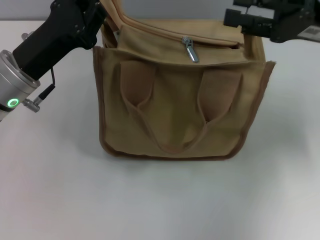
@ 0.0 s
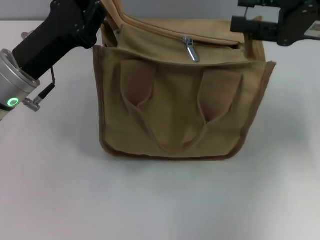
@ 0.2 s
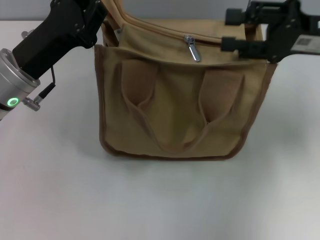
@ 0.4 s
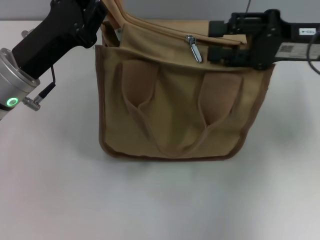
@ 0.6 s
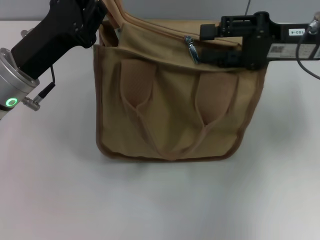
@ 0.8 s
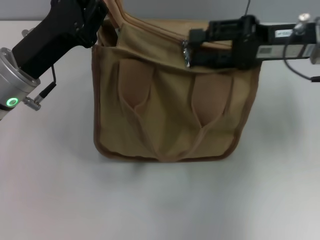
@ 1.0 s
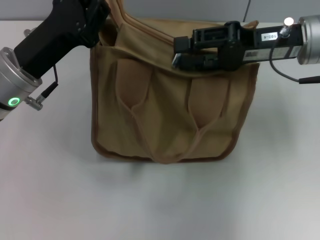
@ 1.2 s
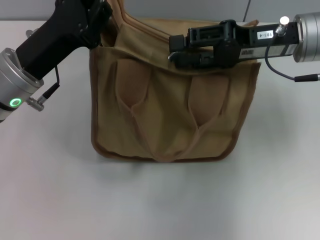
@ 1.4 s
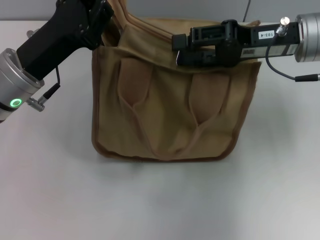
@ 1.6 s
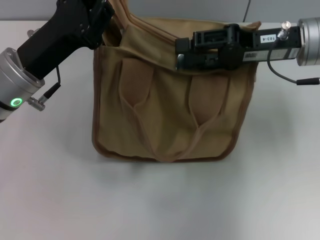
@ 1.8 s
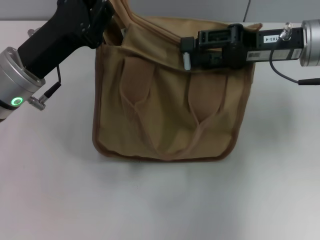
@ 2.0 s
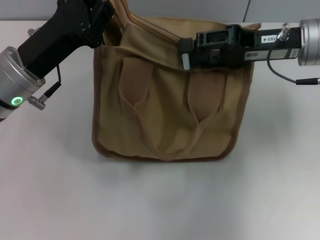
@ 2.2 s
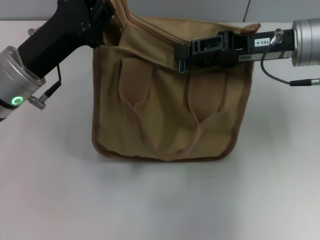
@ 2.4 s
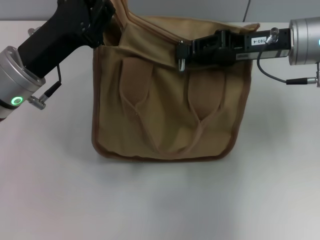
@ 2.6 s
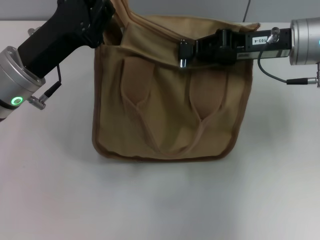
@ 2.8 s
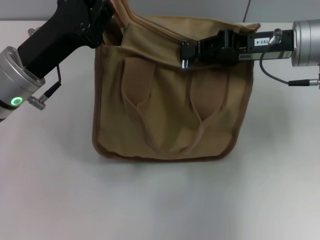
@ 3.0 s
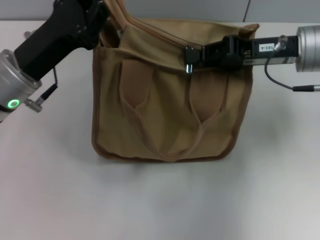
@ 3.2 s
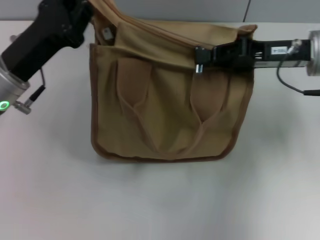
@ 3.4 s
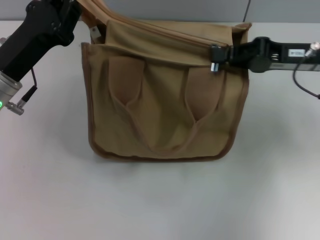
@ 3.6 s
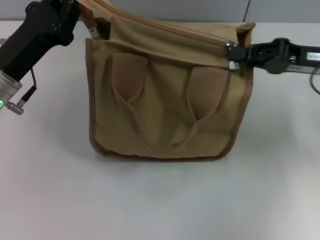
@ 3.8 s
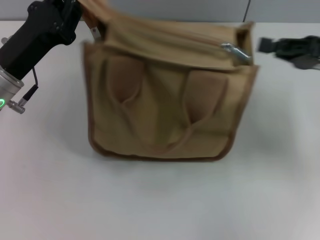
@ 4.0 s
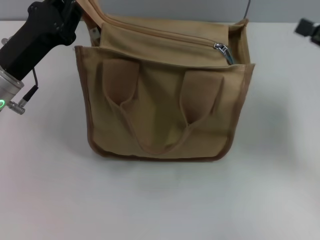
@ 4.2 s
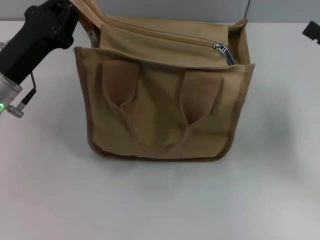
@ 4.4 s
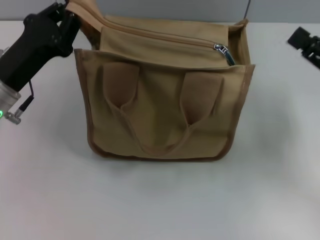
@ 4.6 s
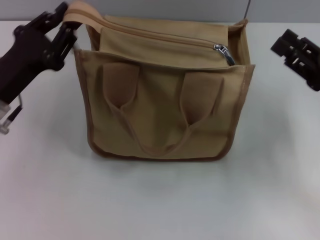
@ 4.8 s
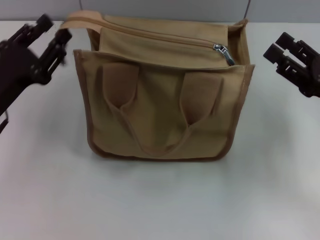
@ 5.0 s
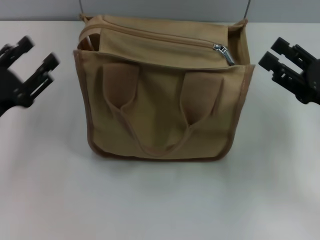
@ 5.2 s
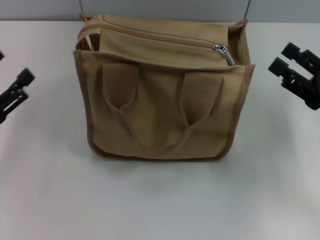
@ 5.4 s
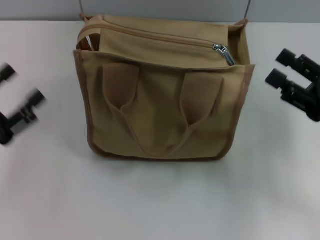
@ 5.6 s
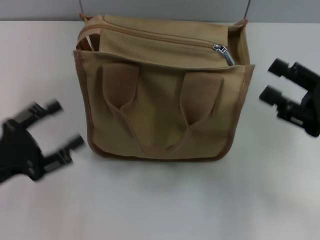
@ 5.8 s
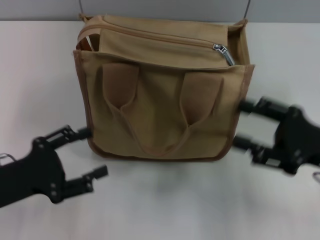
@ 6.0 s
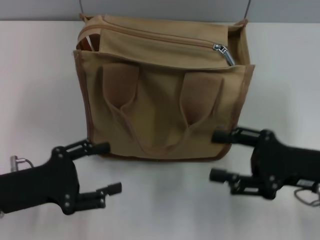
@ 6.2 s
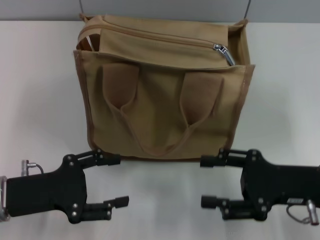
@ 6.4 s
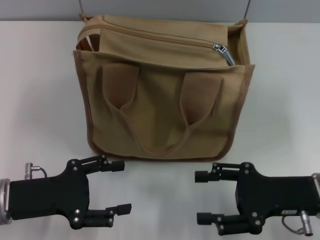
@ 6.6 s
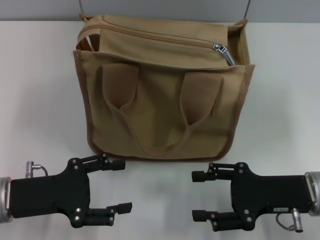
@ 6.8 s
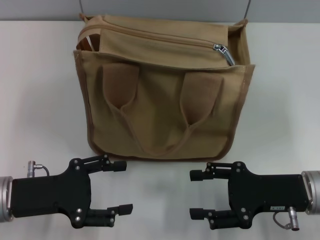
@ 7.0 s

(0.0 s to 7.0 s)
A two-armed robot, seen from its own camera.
Step, 0.0 s - 3.8 s: Pull up the zipper with your right hand.
Step, 4.0 s - 5.0 s: Grab the zipper with your left hand.
0.0 s - 1.4 s: The right gripper shifts roughly 5 cm to the left.
1.4 s - 2.8 s: The right gripper closes.
2.8 s - 4.2 s: The right gripper goes roughly 15 cm to the right and backward.
4.2 s - 5.6 s: The right gripper shifts some 5 cm backward, and opens its fingers; the left gripper shifts about 15 cm backward and to the left, and opens its fingers.
5.6 s - 7.0 s: The left gripper is displaced to the right by roughly 5 cm. Meanwhile the right gripper heads to the left, covering roughly 5 cm.

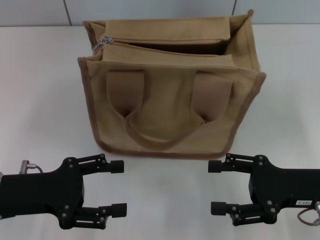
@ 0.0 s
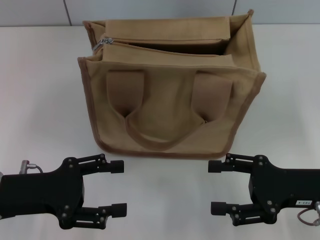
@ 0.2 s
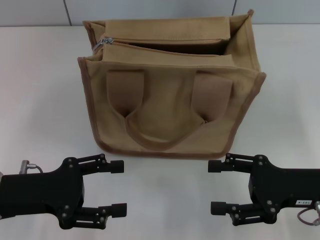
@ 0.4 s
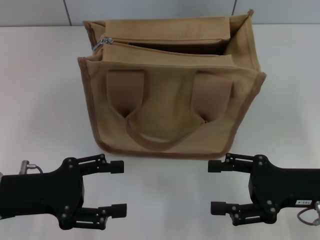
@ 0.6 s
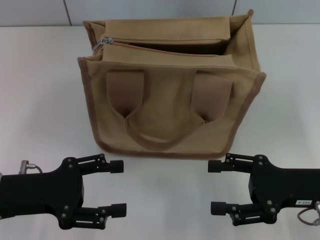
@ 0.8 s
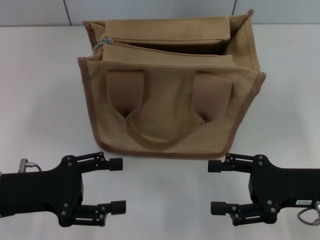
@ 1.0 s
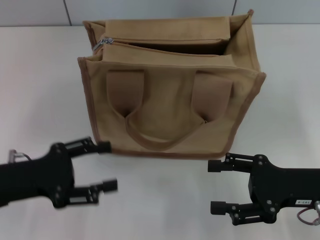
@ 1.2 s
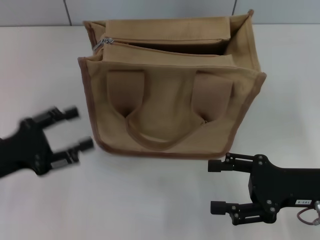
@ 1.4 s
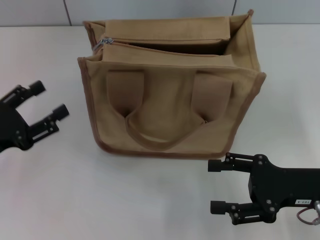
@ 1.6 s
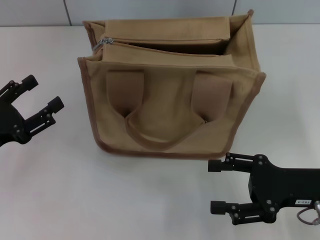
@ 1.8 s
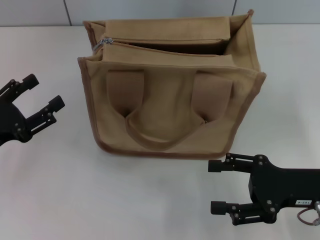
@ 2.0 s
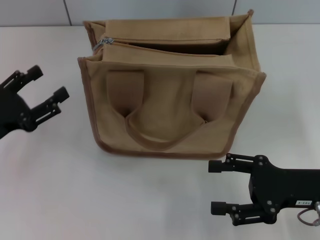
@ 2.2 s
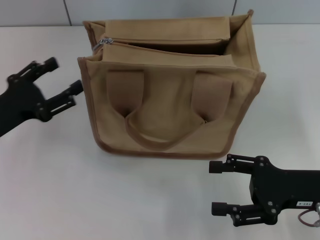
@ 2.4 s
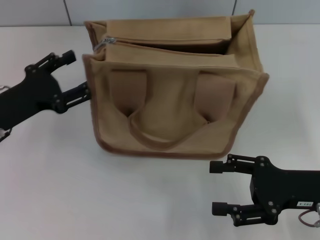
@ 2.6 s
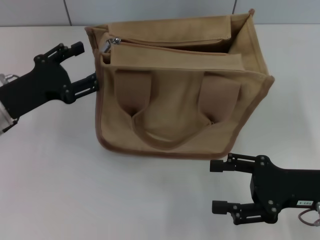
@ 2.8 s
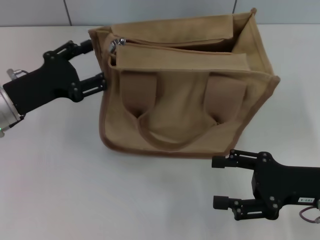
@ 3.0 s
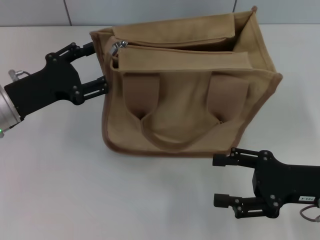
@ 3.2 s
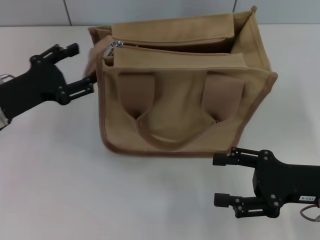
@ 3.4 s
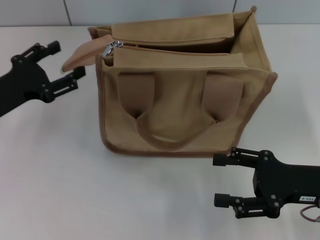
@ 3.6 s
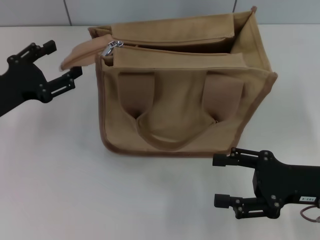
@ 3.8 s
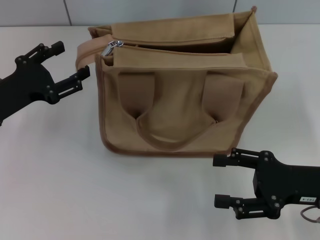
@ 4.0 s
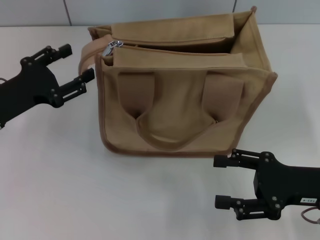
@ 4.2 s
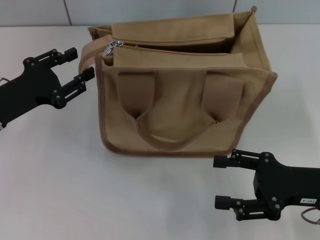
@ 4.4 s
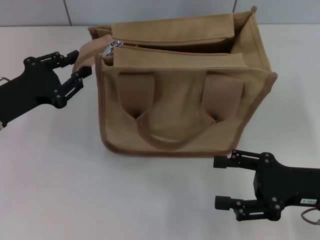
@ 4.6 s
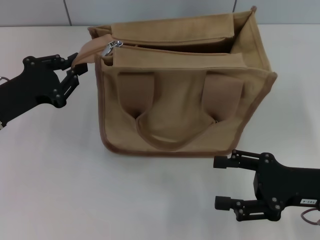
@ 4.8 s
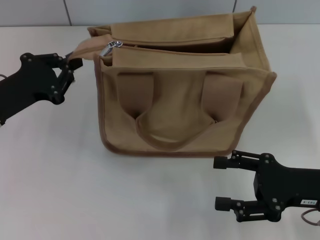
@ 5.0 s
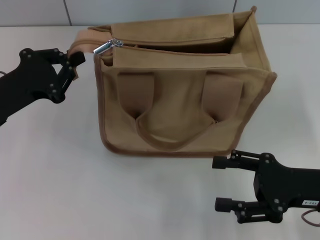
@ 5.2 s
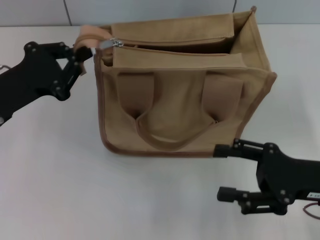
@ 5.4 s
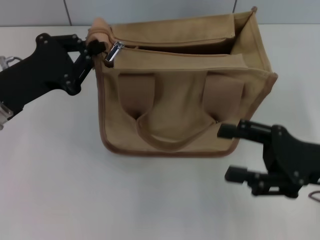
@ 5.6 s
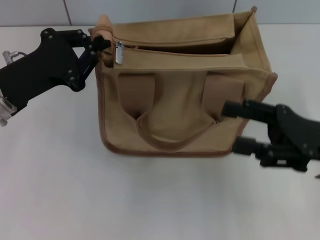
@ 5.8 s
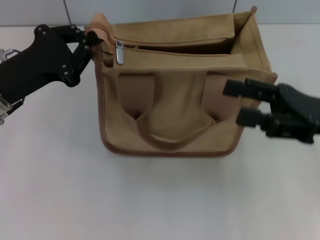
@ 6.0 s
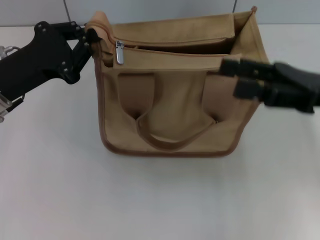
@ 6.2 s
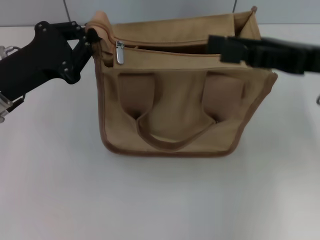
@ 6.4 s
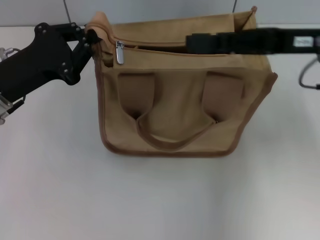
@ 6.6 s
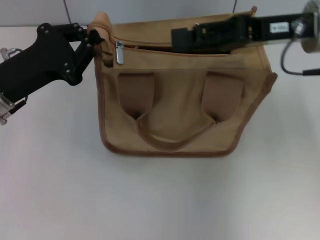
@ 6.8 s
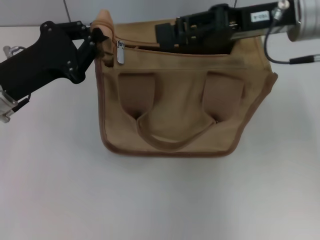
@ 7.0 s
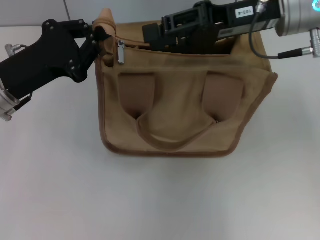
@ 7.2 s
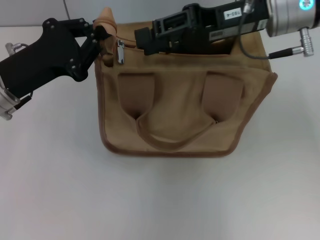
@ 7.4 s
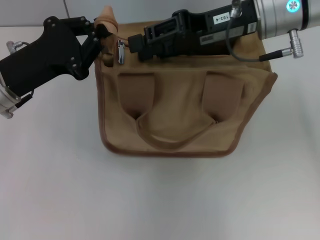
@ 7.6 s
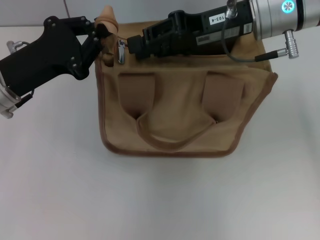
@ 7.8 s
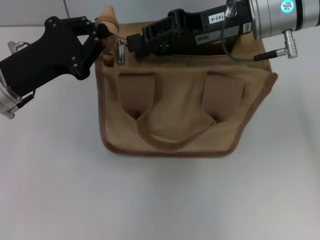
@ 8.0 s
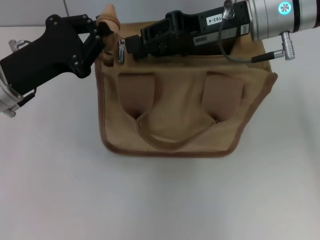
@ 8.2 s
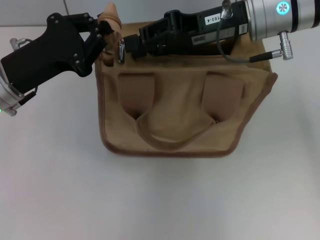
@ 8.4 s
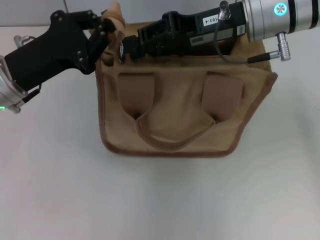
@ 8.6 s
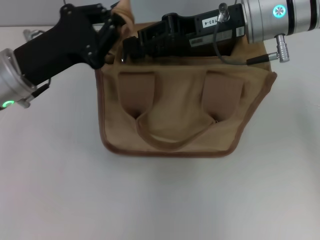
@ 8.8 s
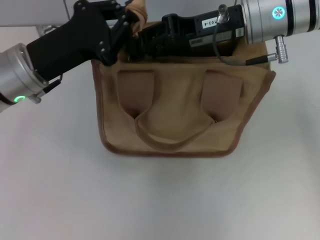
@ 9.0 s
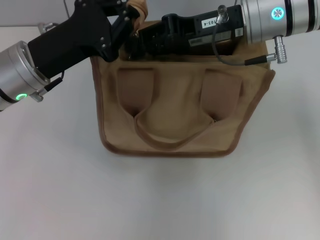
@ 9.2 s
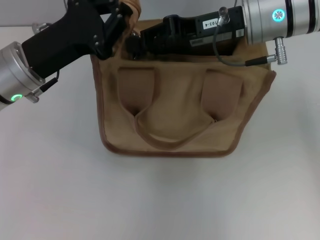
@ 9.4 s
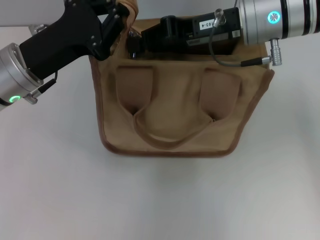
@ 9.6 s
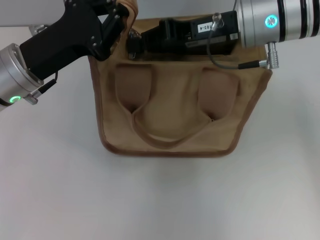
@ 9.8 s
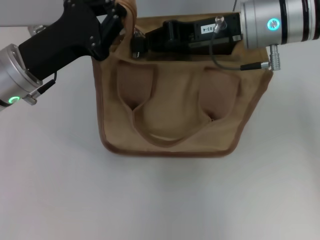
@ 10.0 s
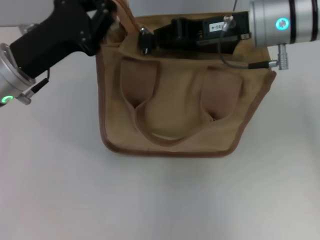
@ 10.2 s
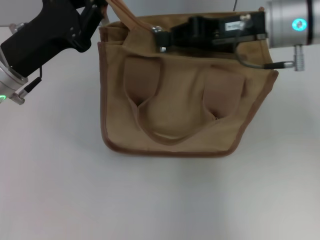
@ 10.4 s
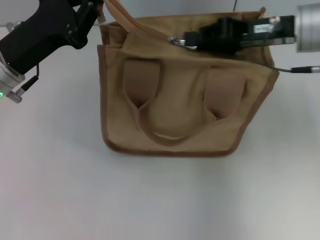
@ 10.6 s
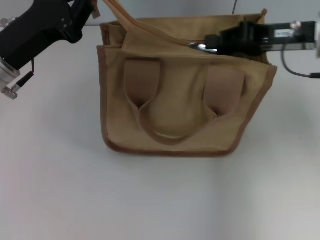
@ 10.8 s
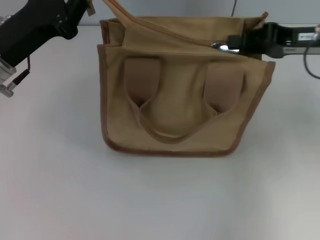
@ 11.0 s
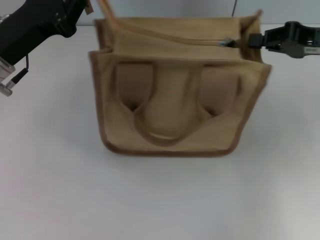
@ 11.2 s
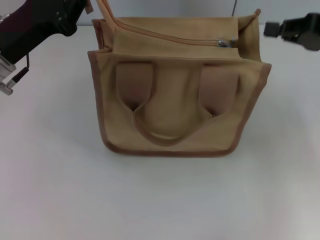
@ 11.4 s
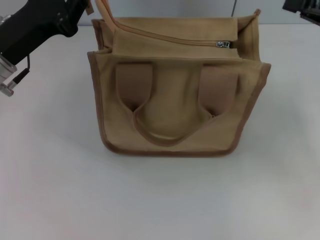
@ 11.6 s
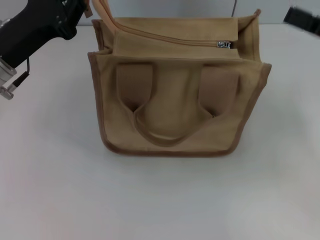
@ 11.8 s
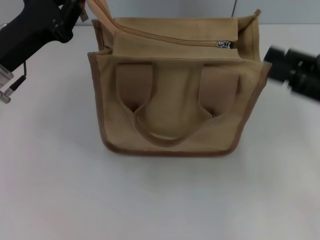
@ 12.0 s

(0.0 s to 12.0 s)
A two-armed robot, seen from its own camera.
Step, 0.0 s - 11.2 s: Pull up the zipper with your right hand.
0.0 s - 1.6 s: The left gripper moves to the left, some 5 cm.
1.6 s - 3.0 s: The left gripper goes roughly 10 cm forward and to the right.
3.0 s - 4.4 s: The grippers make only small movements.
4.4 s - 6.0 s: The right gripper goes roughly 5 cm upward. Meanwhile the left gripper closes up.
6.0 s - 7.6 s: The right gripper heads forward, to the left and upward, covering about 20 cm, and closes up.
7.6 s - 9.0 s: The grippers make only small movements.
10.4 s - 12.0 s: The right gripper travels to the right, backward and downward by some 15 cm, and opens its fingers.

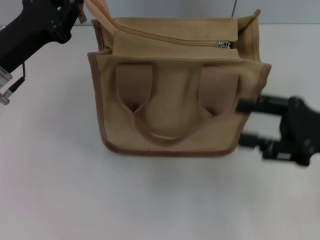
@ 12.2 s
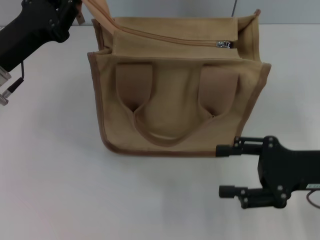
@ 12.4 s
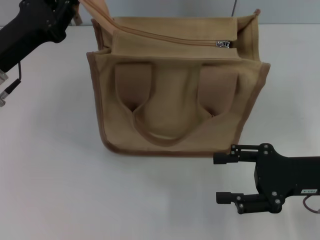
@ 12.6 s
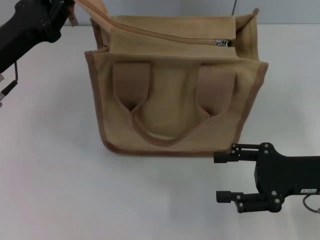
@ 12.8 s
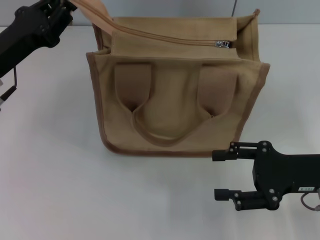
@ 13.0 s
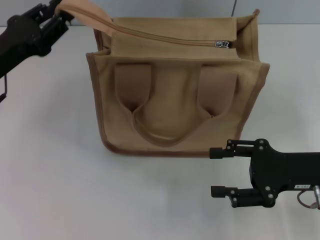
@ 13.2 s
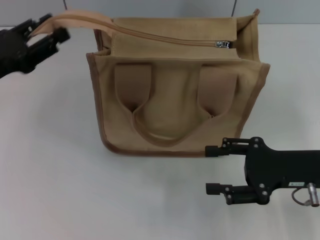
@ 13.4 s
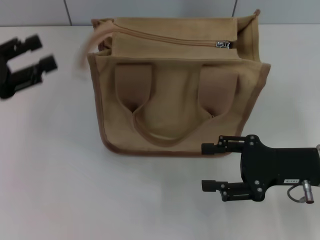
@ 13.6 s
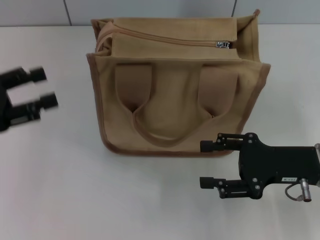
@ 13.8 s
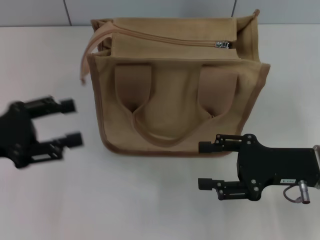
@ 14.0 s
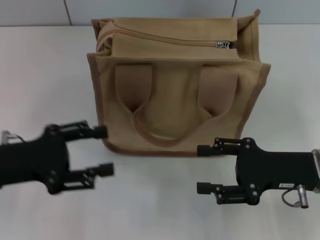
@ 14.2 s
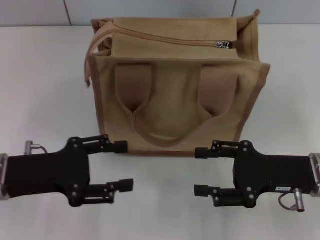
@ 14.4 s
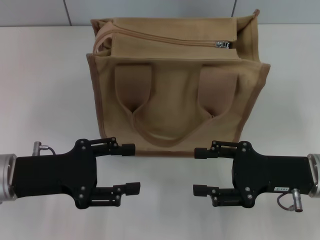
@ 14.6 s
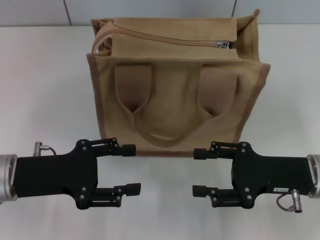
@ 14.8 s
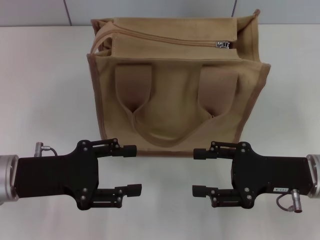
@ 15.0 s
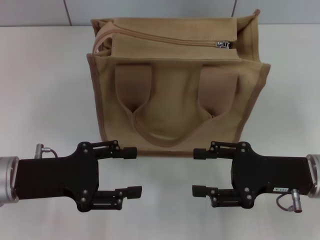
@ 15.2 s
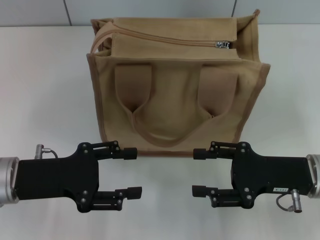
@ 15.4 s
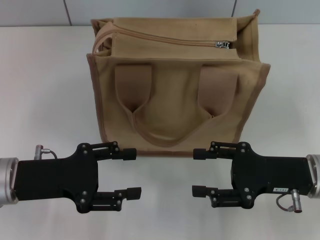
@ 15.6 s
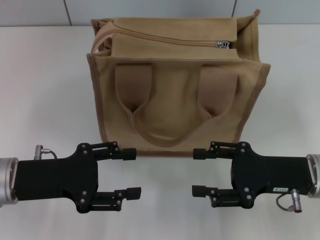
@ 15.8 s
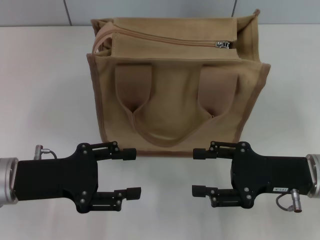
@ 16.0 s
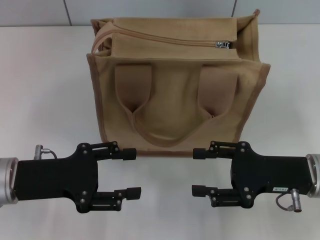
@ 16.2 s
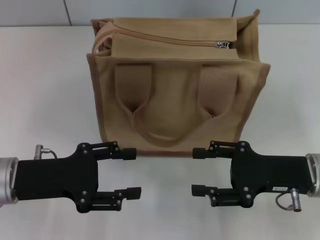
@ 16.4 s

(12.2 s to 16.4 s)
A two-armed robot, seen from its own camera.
Step, 12.2 s - 13.8 s: Grab the zipper with your left hand.
12.2 s - 13.6 s: The left gripper travels to the left by about 10 cm, and opens; the right gripper shifts by roughly 5 cm.
13.6 s - 15.0 s: The left gripper shifts some 10 cm to the right and downward.
15.0 s - 16.4 s: Both grippers stay put.
